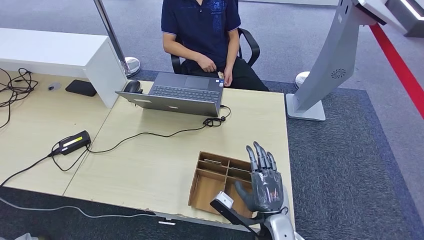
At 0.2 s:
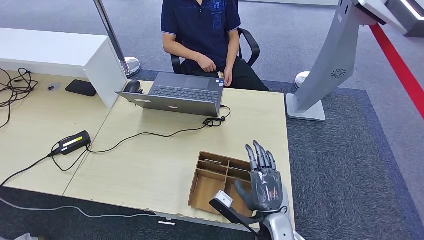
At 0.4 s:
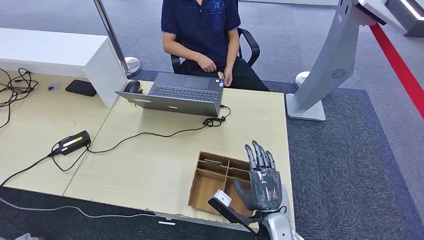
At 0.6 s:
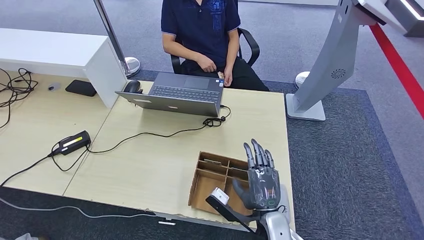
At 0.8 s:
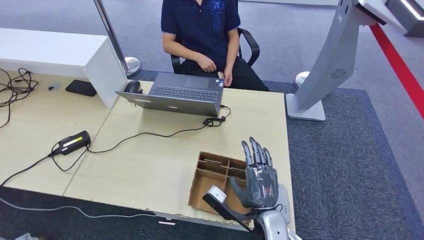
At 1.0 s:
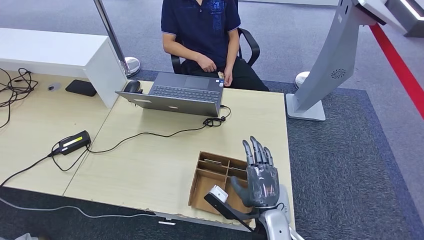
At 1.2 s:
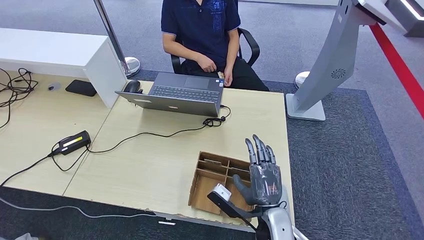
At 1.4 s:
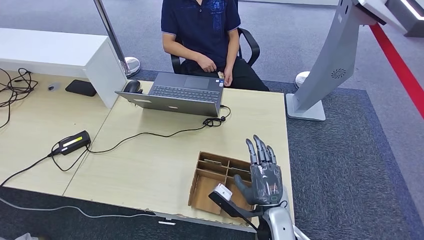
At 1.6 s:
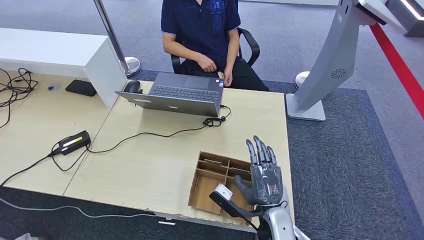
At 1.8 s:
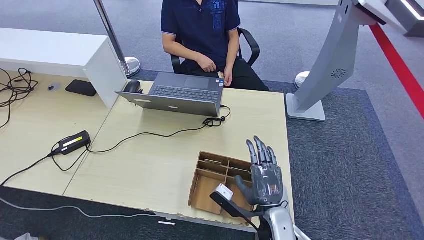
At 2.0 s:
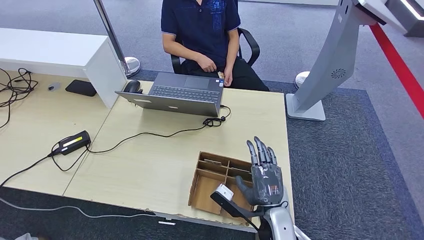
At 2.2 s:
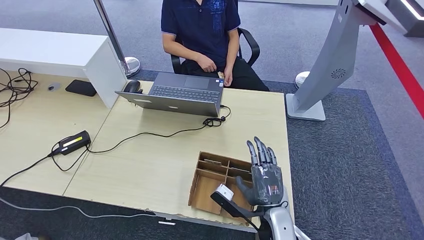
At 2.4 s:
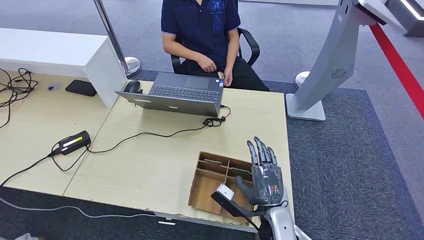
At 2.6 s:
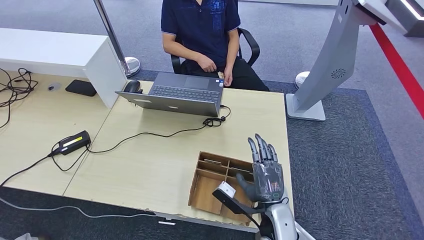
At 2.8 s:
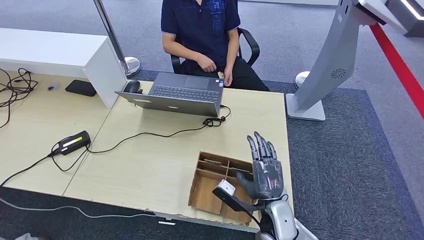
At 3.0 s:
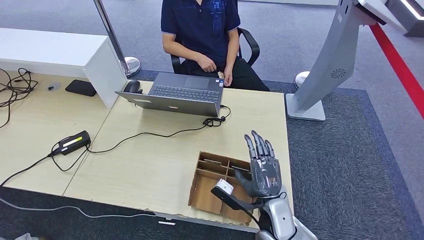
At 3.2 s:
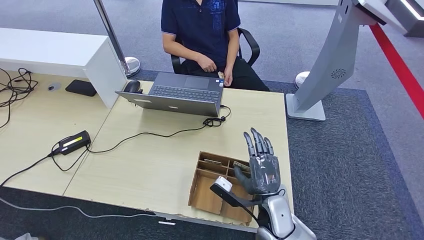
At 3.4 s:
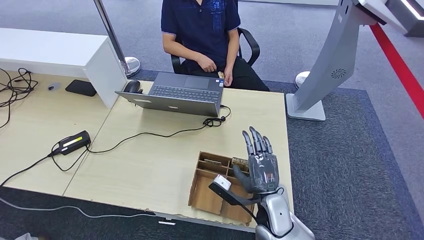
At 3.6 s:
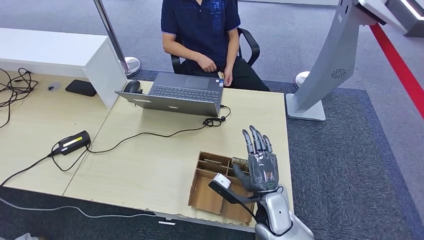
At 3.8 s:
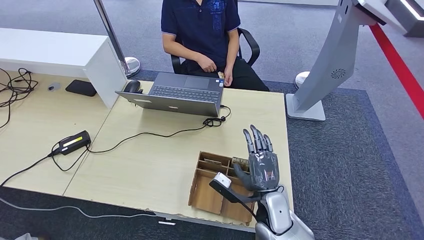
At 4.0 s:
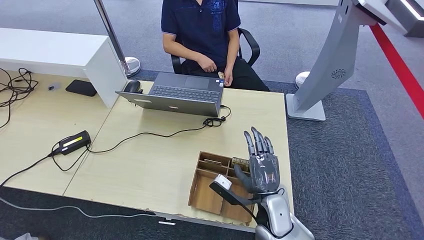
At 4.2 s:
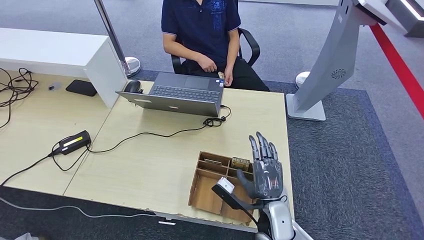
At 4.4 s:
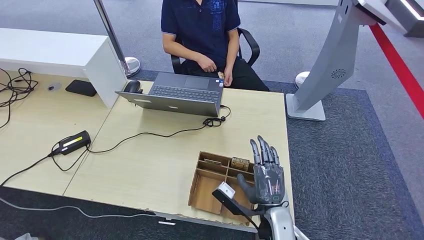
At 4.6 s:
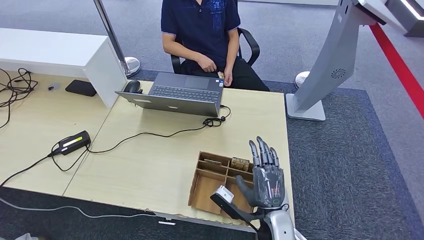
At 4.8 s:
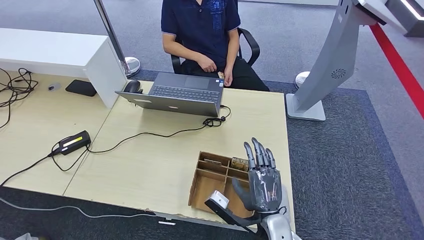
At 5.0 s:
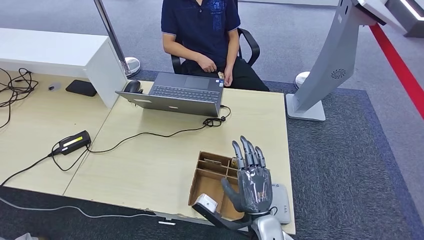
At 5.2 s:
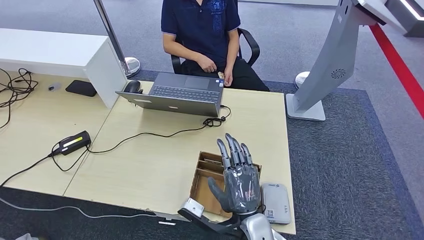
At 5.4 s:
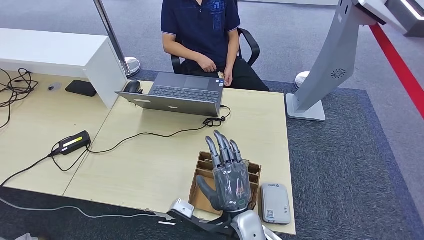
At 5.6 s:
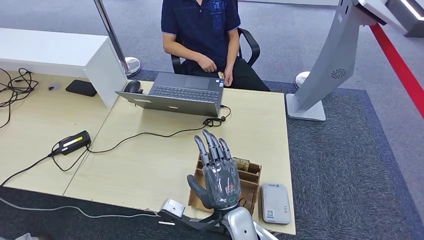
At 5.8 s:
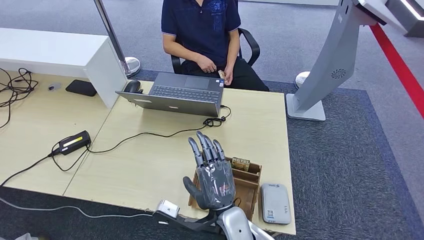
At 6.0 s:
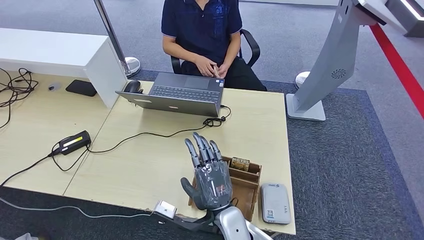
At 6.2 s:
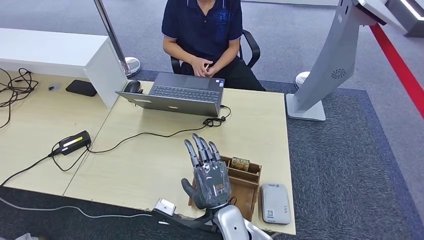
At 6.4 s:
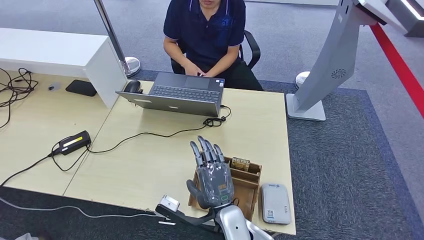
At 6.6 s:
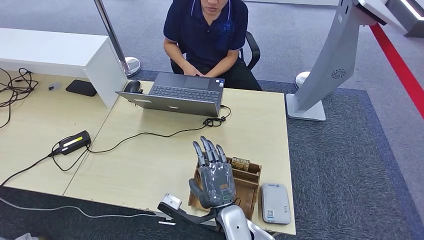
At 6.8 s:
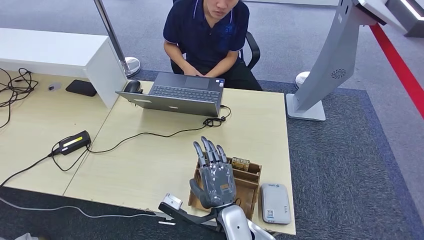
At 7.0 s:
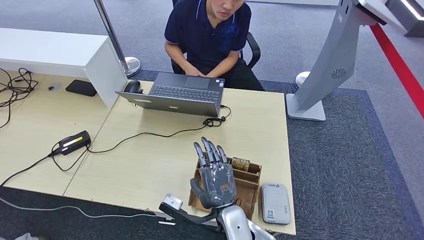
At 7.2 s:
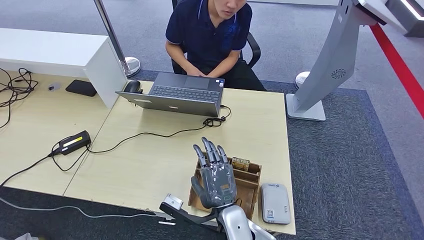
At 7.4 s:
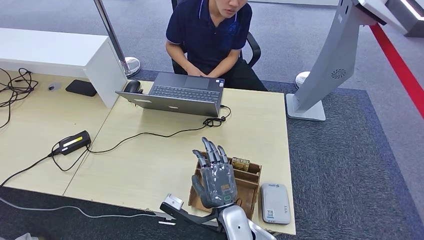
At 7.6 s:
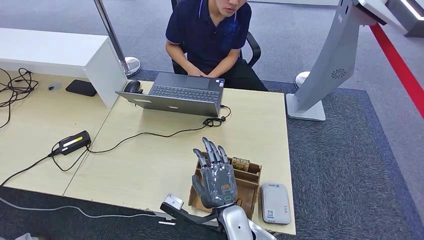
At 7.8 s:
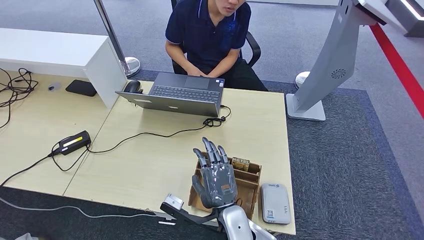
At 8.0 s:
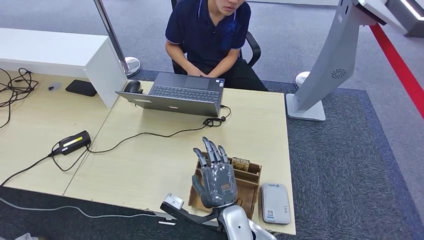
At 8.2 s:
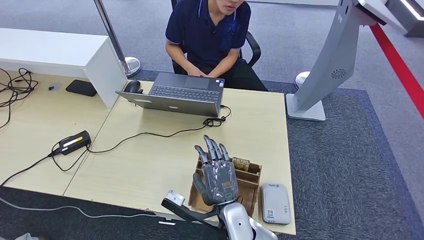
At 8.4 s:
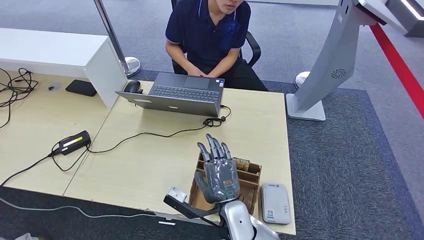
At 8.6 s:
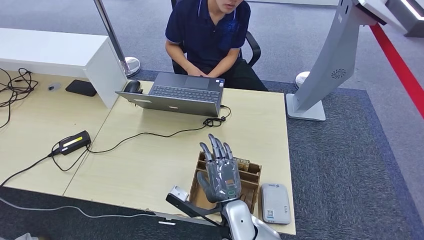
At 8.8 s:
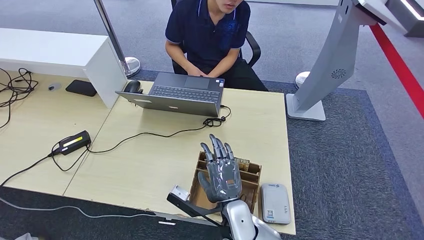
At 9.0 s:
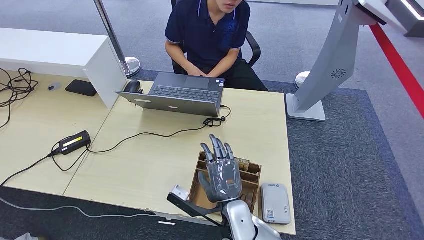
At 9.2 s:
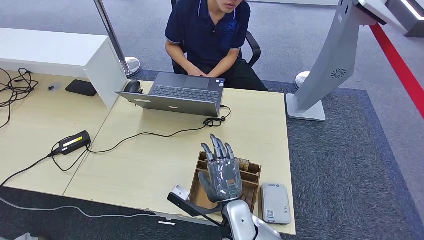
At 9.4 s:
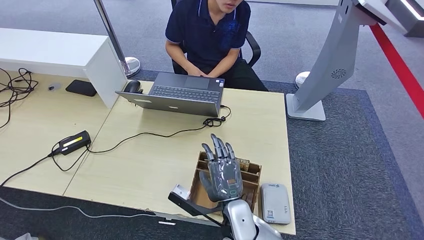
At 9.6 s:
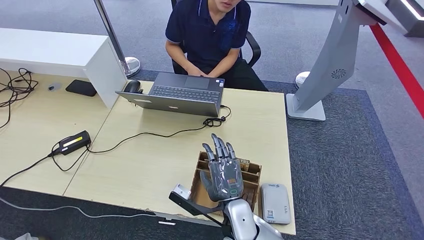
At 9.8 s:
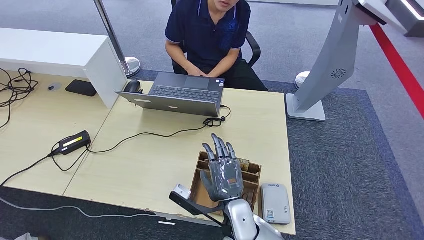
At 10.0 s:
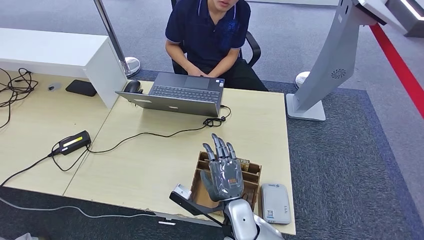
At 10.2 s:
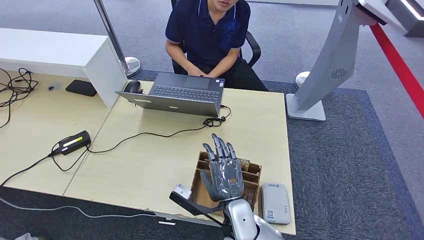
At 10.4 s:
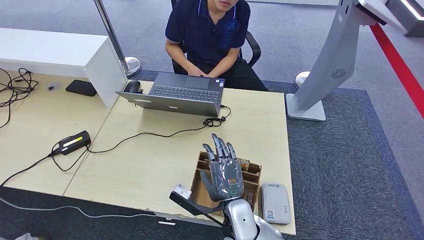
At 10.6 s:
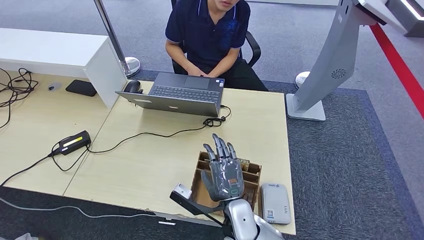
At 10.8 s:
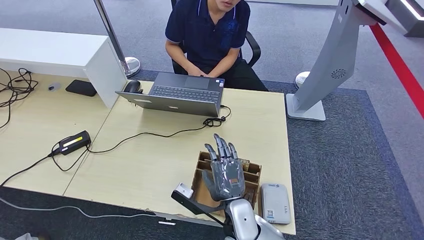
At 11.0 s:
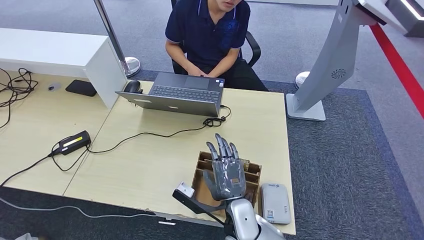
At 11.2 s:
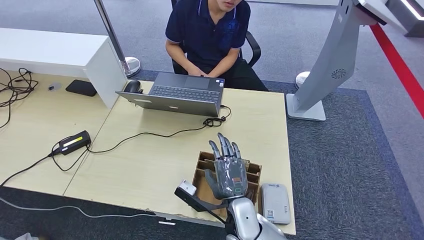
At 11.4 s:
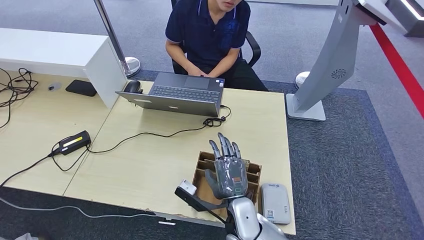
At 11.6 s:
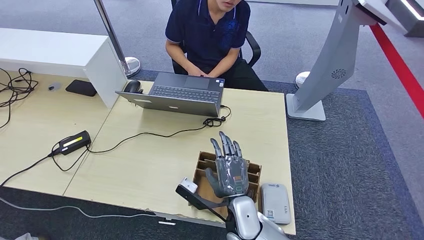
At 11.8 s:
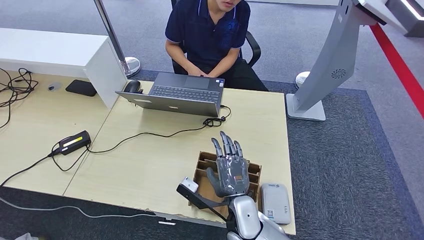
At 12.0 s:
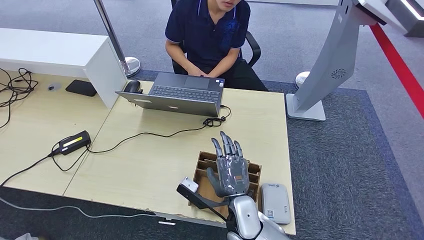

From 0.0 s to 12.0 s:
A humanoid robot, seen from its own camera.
From 0.0 s to 4.4 s: The hands make only small movements.
From 4.4 s to 6.0 s: The right hand travels to the left by some 15 cm.
From 6.0 s to 9.0 s: There are only small adjustments of the hands.
From 9.0 s to 10.4 s: The two hands keep their place.
From 10.4 s to 12.0 s: There are only small adjustments of the hands.

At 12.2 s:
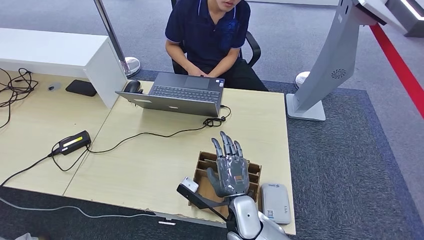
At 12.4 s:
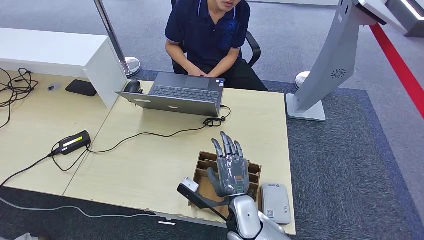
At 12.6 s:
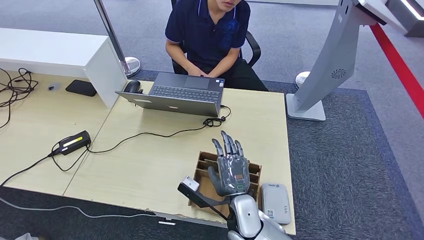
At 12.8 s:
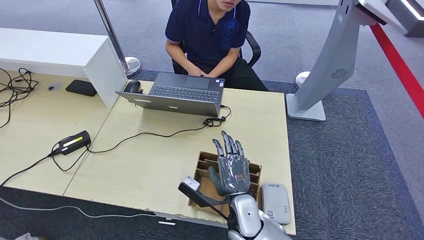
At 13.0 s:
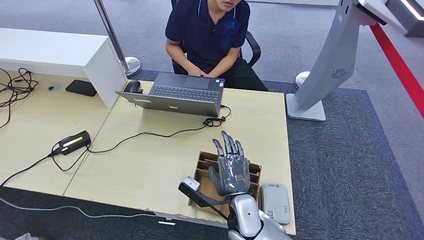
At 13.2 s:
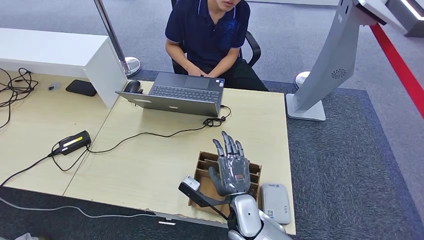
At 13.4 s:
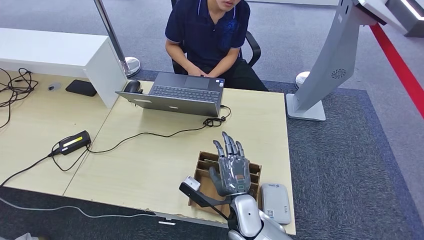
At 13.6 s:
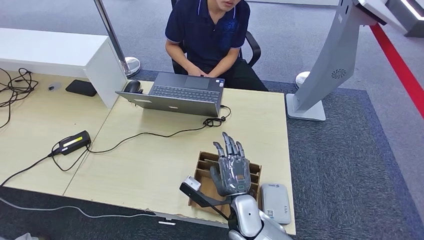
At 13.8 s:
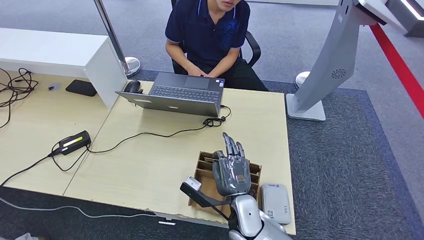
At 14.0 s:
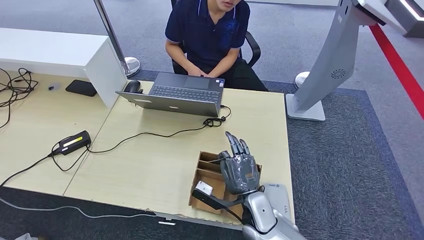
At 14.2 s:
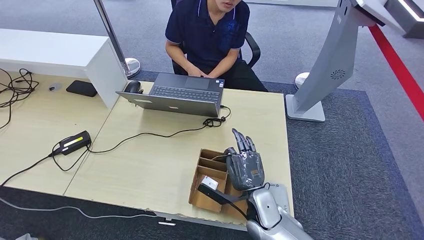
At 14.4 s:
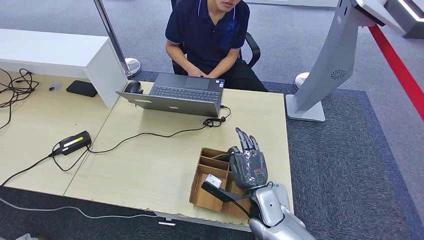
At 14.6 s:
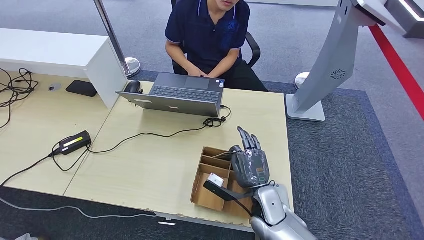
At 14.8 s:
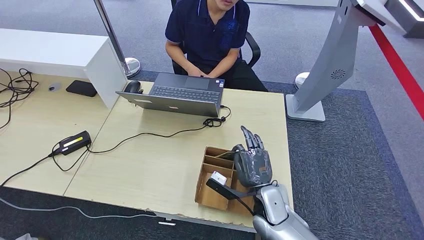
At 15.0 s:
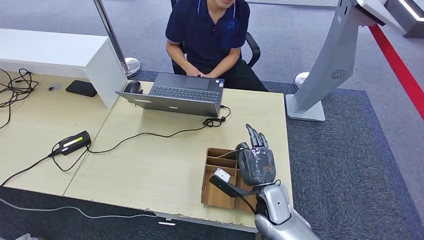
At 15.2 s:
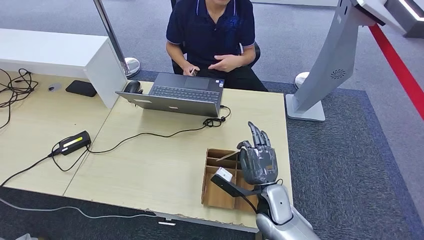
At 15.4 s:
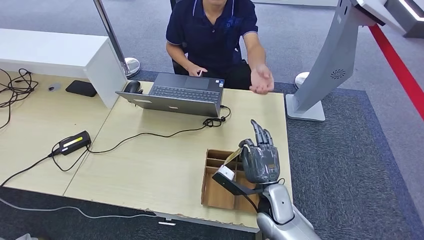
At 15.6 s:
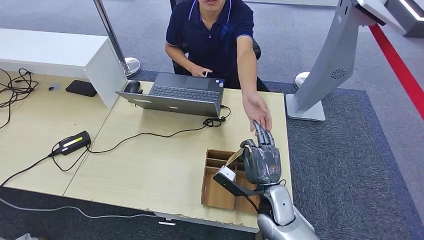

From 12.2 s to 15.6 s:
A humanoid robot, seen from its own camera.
Step, from 12.2 s to 14.6 s: Pick up the room key from the key card box.
Step, from 14.8 s to 15.6 s: Hand the room key to the person.
From 12.2 s to 13.8 s: Both hands stay put.
From 13.8 s to 15.6 s: The right hand goes some 10 cm to the right.
